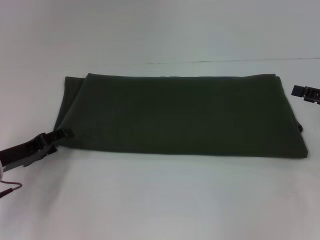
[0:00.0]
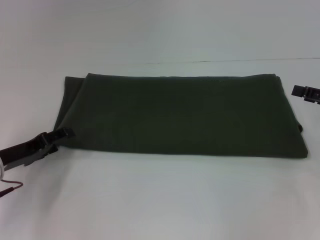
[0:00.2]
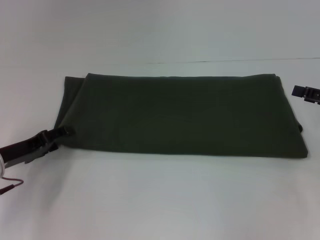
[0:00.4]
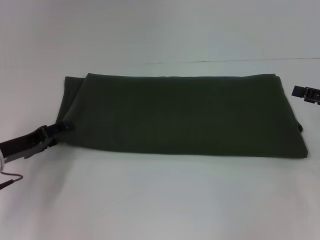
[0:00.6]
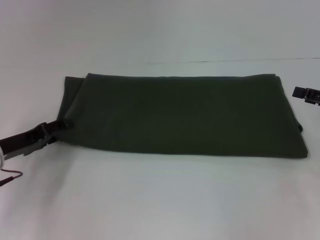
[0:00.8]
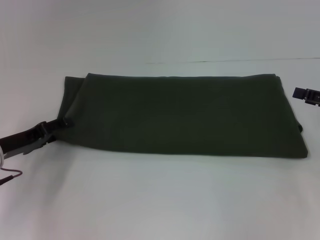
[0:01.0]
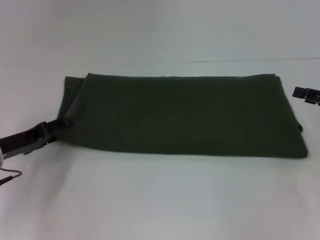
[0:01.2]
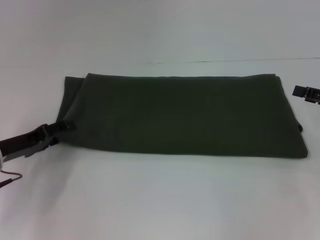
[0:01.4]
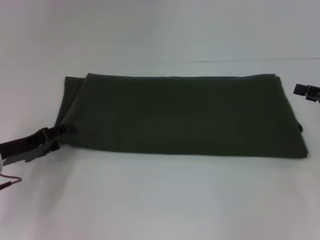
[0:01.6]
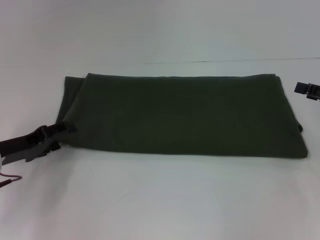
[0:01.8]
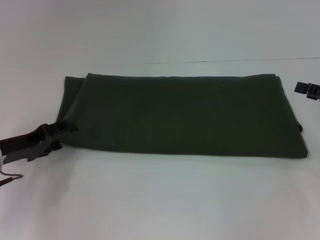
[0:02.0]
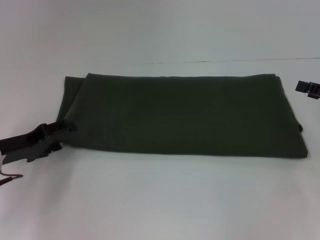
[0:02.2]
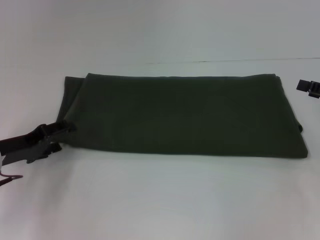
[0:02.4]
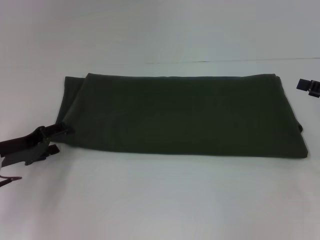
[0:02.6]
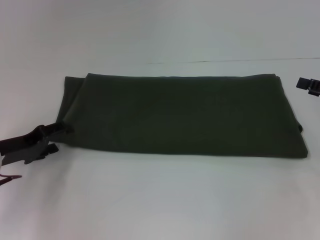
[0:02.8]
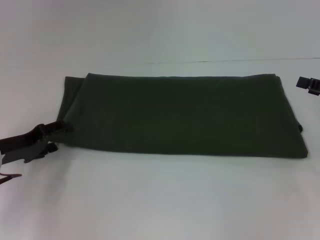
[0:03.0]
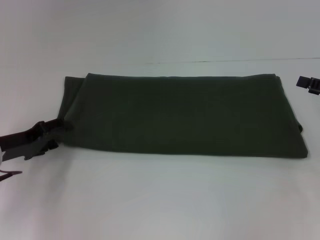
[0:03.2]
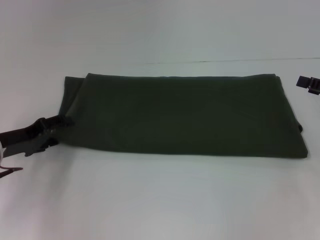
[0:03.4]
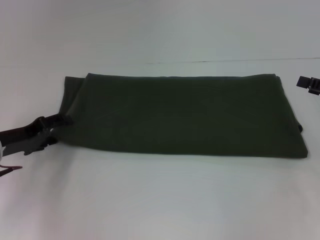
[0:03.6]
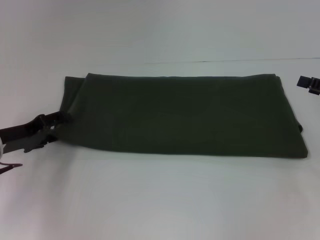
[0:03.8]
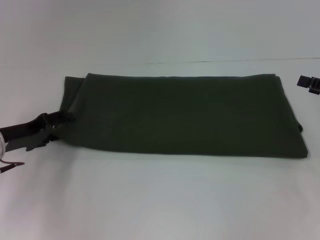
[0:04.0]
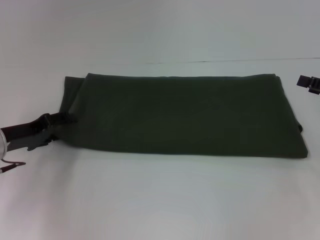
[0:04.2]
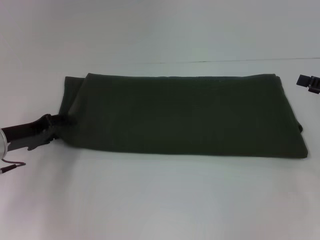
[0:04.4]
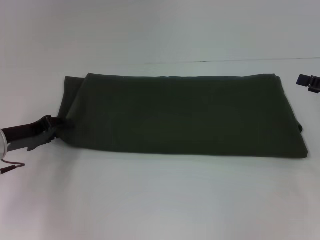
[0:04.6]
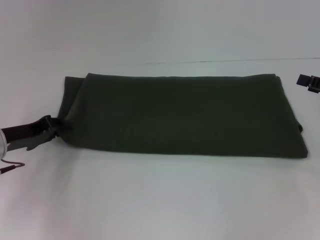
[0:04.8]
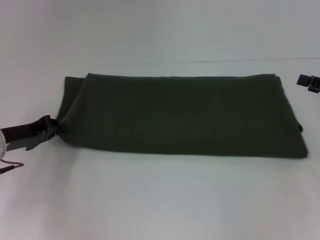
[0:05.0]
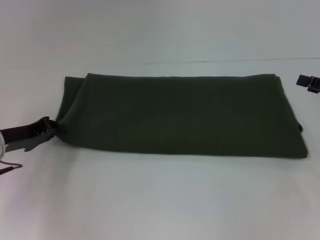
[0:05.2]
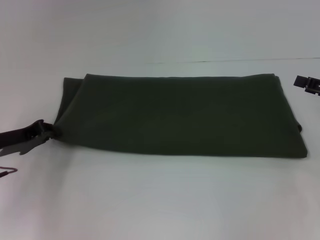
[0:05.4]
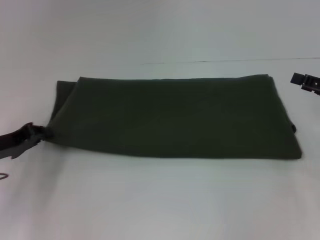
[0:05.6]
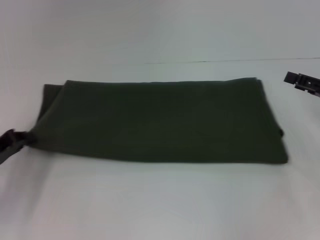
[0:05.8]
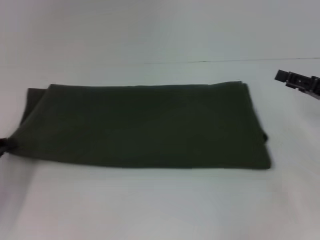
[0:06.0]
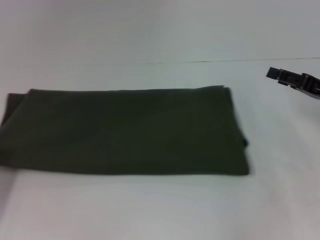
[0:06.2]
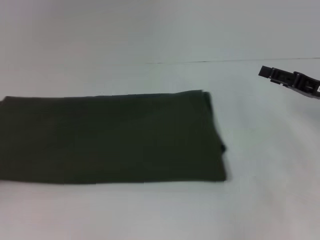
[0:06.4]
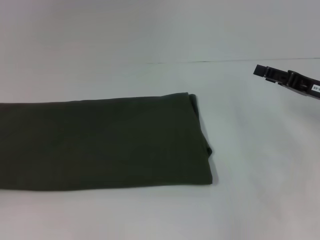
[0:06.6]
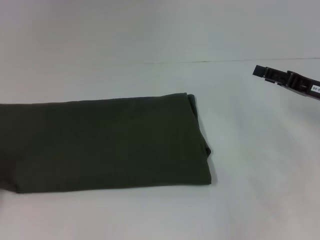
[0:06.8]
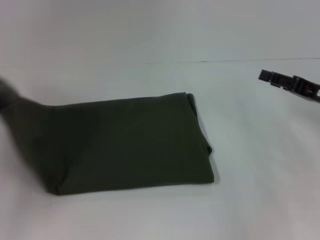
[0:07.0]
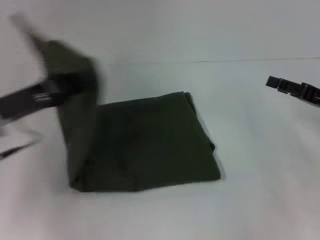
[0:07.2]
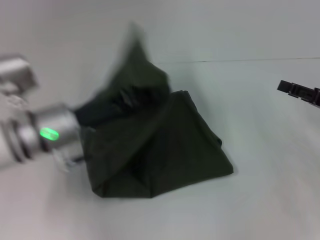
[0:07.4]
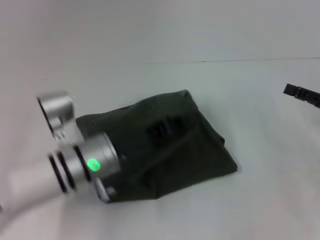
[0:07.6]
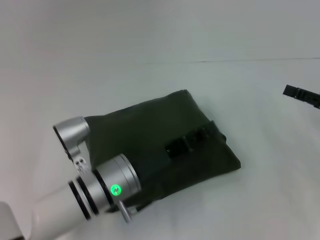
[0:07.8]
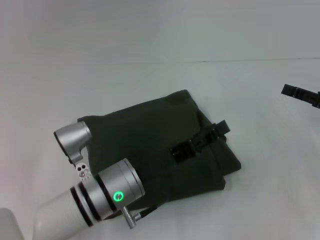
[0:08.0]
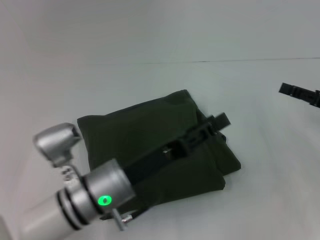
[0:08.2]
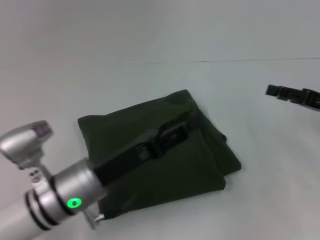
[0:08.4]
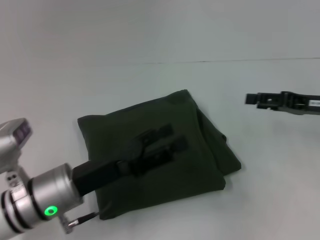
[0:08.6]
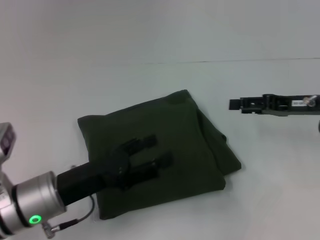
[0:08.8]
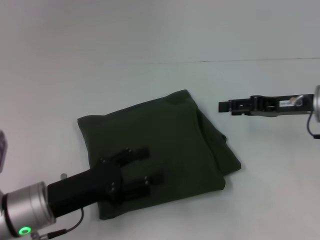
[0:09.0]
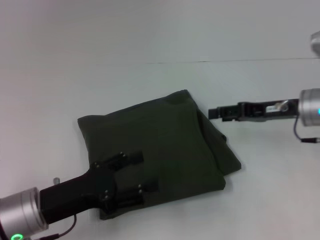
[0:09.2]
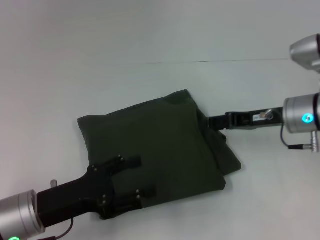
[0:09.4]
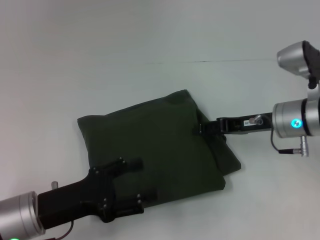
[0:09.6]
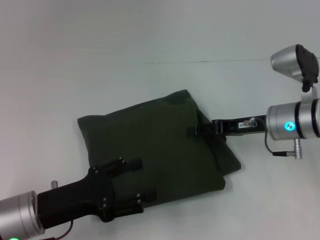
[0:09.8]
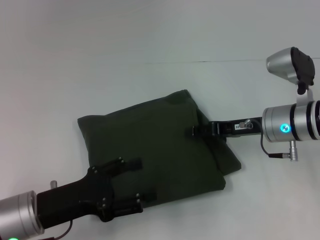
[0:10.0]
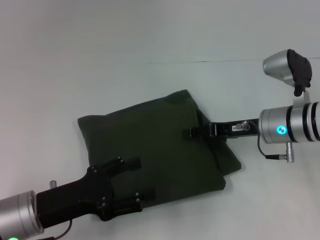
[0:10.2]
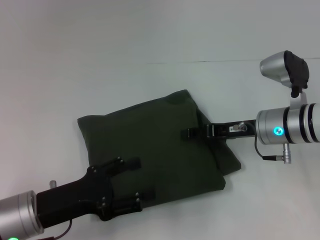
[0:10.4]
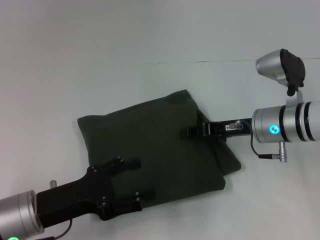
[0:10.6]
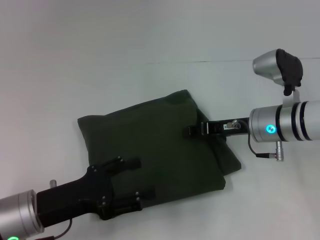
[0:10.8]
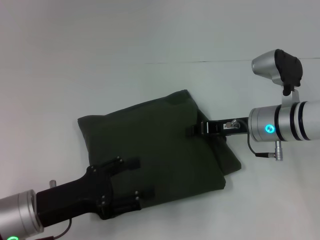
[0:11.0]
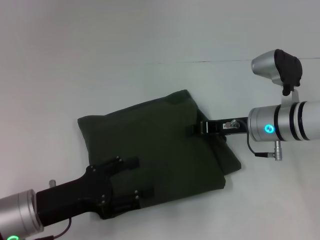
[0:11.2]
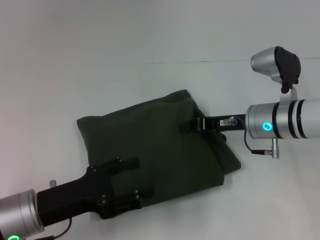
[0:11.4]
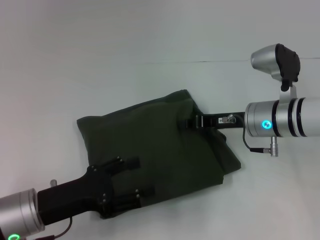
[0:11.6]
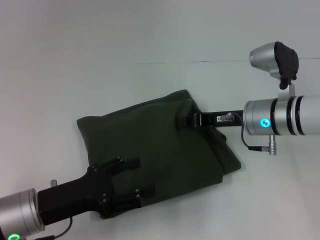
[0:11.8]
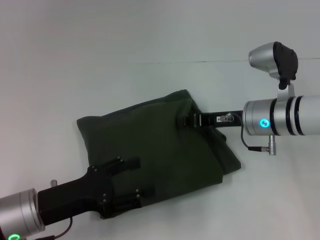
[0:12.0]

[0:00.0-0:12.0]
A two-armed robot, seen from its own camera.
Step, 0:00.0 to 0:08.0: Fold the clothes with your left hand.
0:00.0 to 0:04.4: There are only small adjustments of the grippers.
0:04.4 to 0:06.0: The left gripper travels to the left and backward by about 10 cm, and closes up.
0:06.0 to 0:07.6: The left gripper heads to the right, covering roughly 25 cm.
0:07.6 to 0:09.0: The right gripper goes roughly 10 cm to the left and forward. The left gripper goes roughly 10 cm to the left and backward, and opens.
0:09.0 to 0:10.4: The right gripper shifts approximately 5 cm to the left.
0:10.4 to 0:12.0: The right gripper closes up.

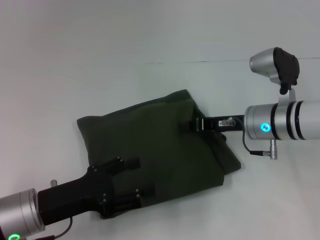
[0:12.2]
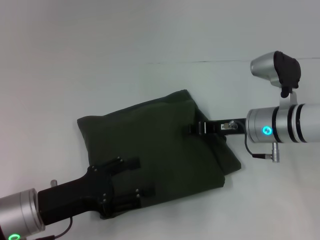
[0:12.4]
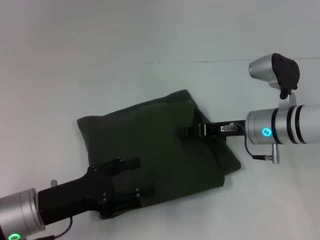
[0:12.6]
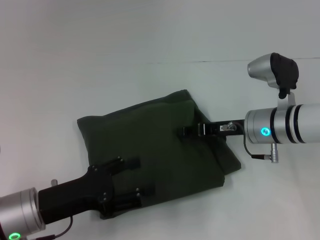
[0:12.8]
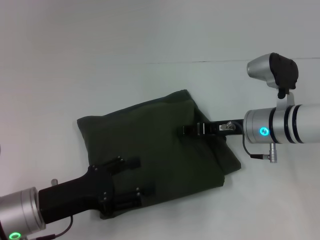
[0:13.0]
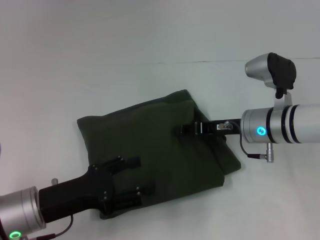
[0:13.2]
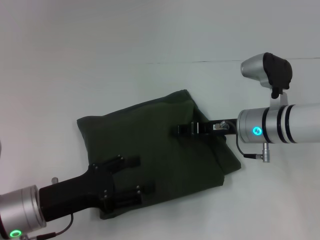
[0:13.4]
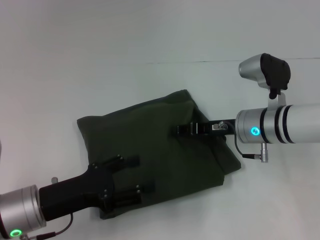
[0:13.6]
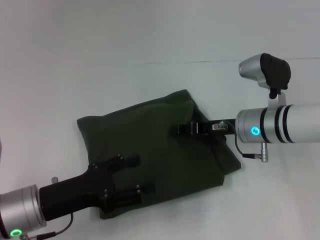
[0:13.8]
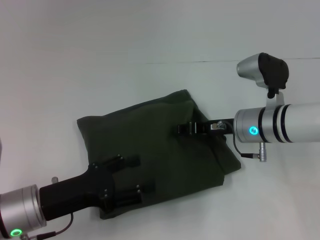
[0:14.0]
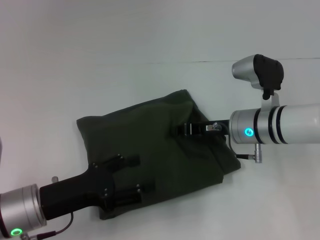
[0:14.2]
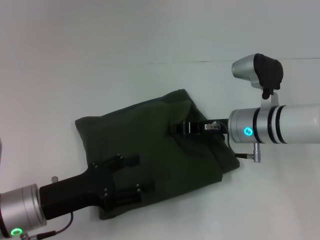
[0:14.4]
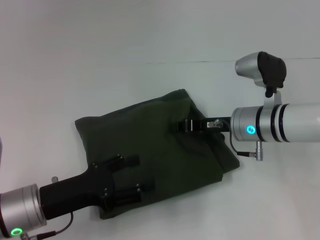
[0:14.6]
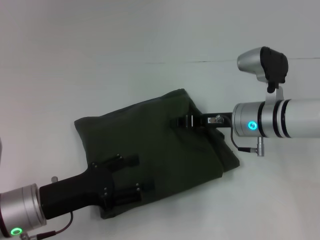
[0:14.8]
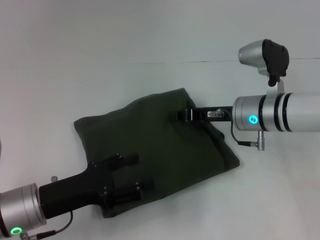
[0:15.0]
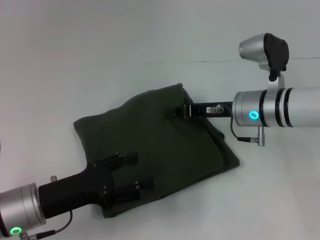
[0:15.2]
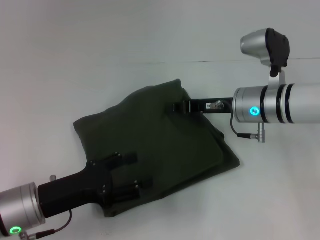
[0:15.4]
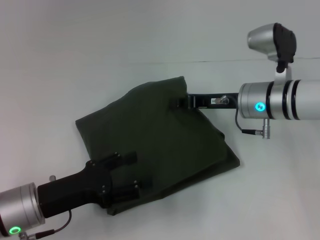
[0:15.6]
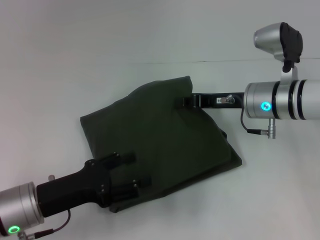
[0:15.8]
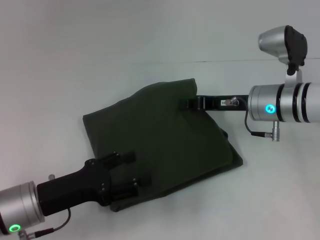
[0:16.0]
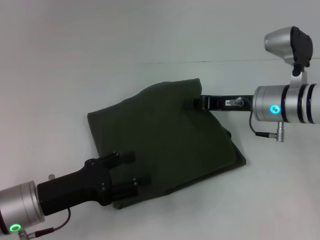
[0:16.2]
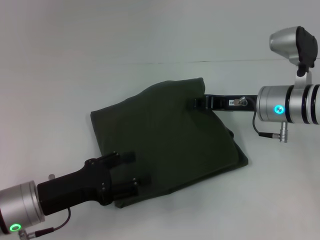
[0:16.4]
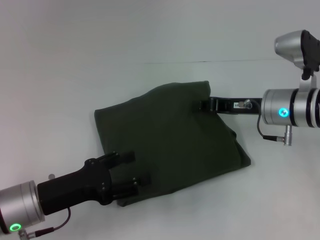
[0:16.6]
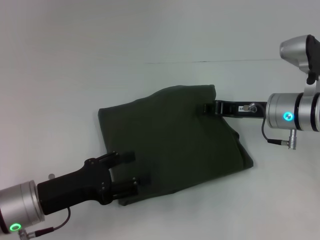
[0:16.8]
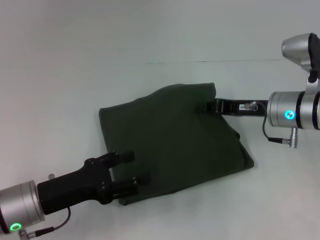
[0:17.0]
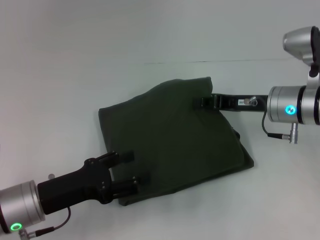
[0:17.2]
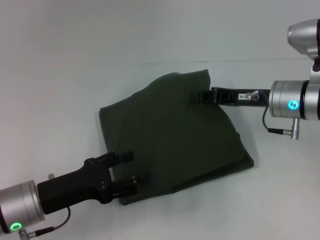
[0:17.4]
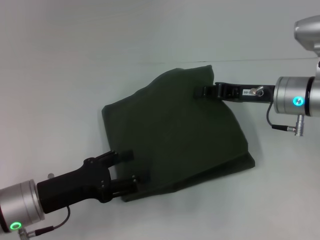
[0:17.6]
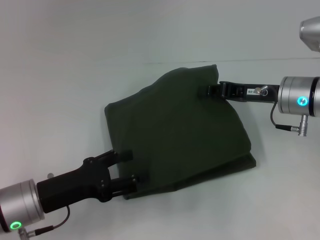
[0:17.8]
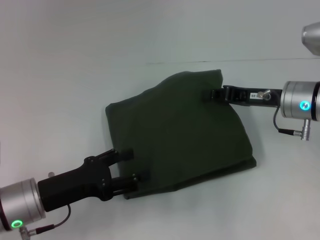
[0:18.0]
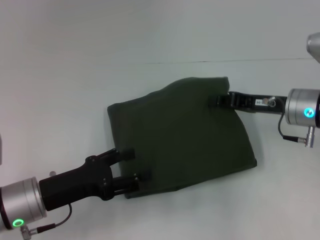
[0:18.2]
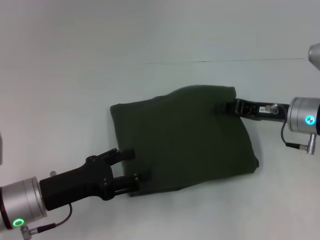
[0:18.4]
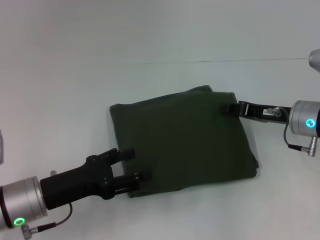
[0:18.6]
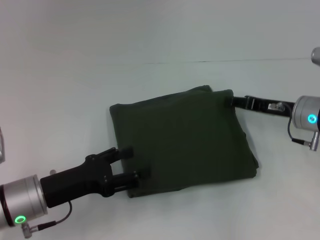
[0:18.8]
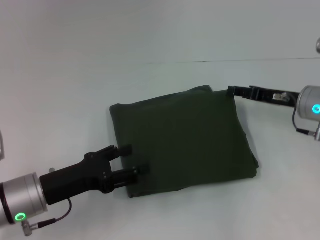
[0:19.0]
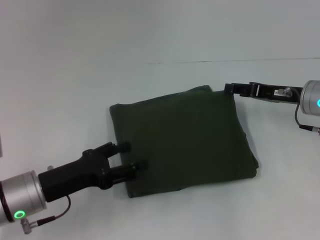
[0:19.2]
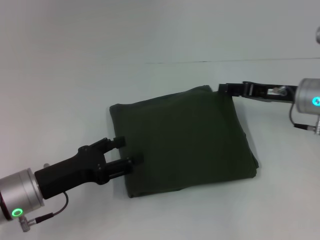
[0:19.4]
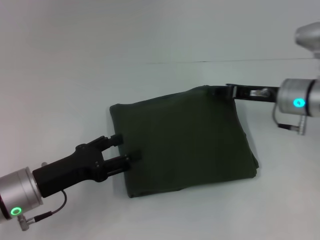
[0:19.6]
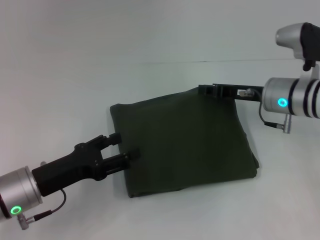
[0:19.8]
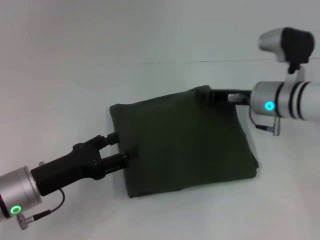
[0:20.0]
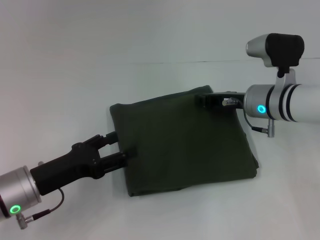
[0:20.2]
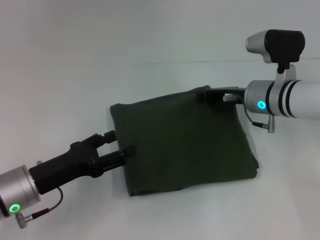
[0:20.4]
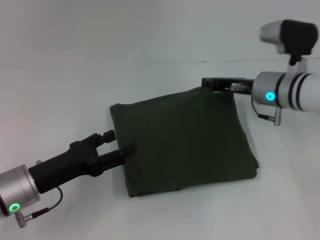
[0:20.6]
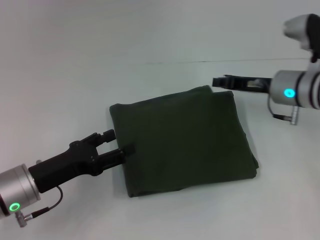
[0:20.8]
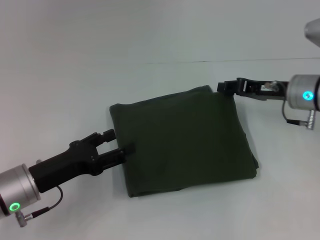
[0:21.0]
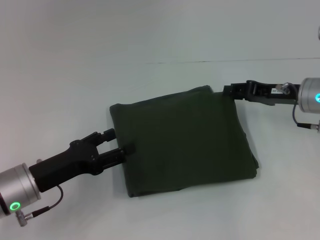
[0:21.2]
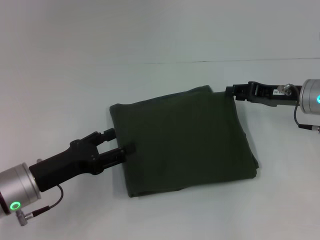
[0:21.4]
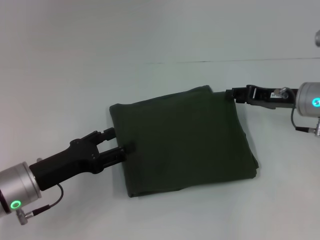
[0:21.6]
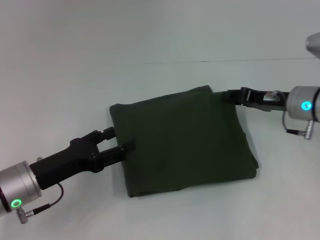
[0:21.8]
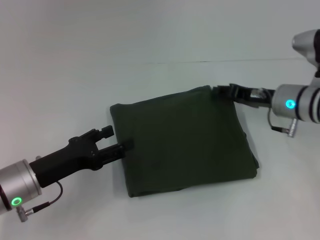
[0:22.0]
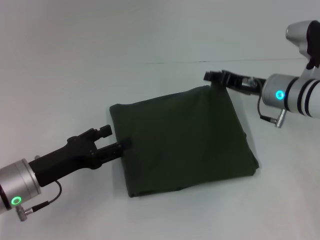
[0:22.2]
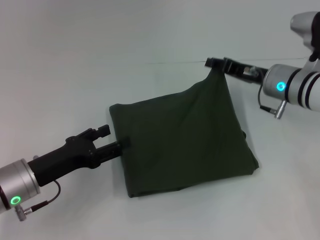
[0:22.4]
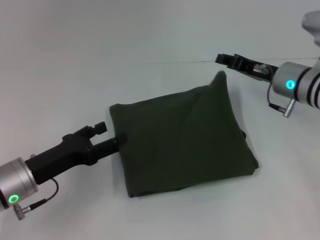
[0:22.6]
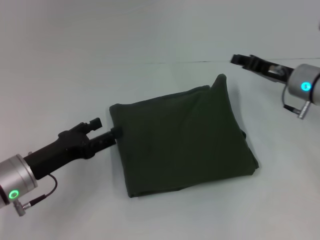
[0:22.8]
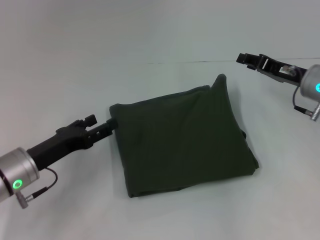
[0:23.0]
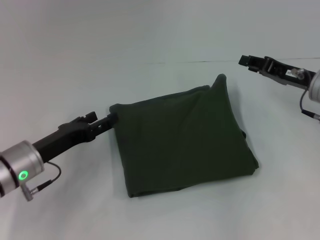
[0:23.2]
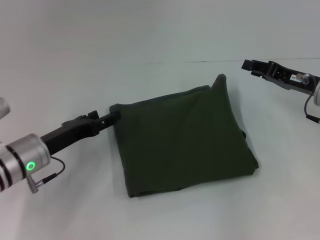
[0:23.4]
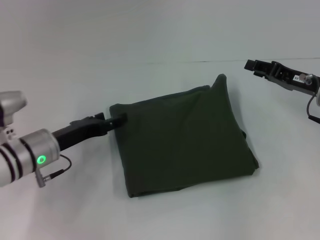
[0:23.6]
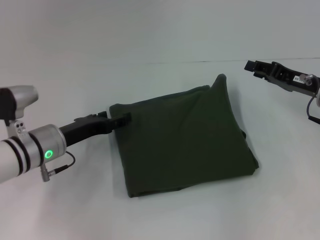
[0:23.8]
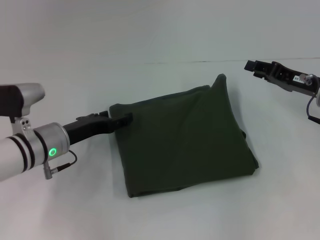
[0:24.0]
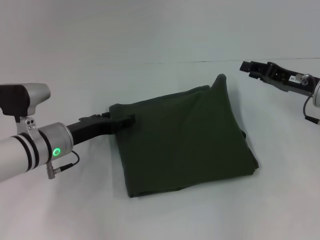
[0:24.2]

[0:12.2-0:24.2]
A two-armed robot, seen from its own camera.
0:12.2 to 0:18.2: The grippers make only small movements.
0:18.2 to 0:19.8: The right gripper opens and closes again.
0:19.8 to 0:21.2: The right gripper travels to the right by approximately 5 cm.
0:21.2 to 0:22.6: There are only small adjustments of the grippers.
0:22.6 to 0:24.2: The right gripper moves to the right, roughly 5 cm; the left gripper goes some 10 cm forward.
